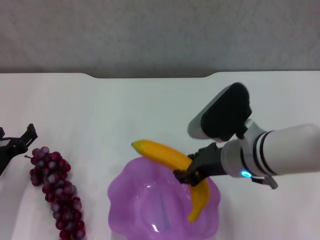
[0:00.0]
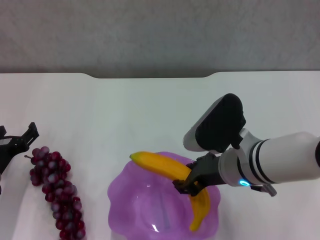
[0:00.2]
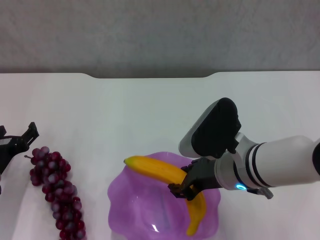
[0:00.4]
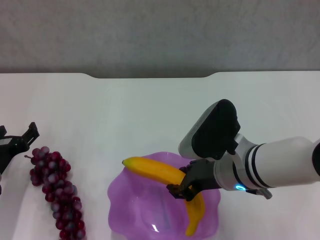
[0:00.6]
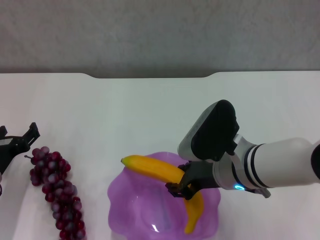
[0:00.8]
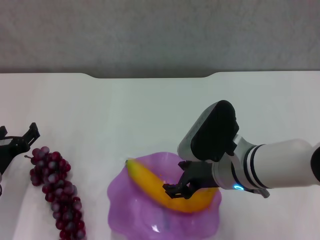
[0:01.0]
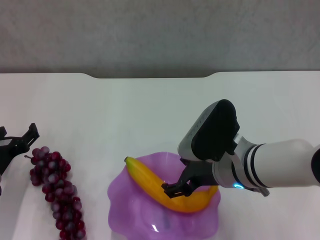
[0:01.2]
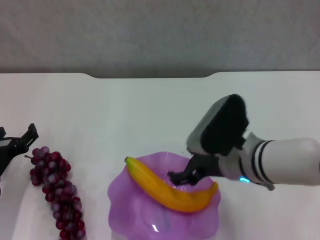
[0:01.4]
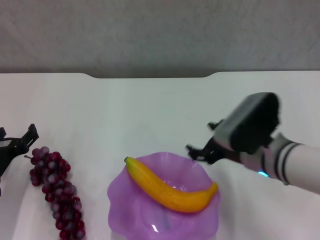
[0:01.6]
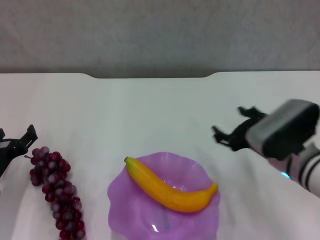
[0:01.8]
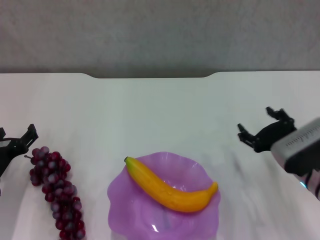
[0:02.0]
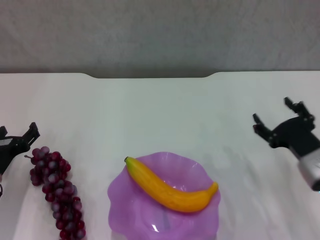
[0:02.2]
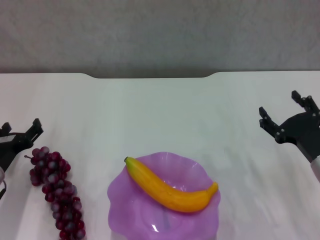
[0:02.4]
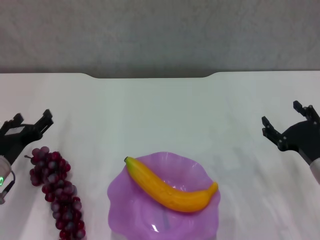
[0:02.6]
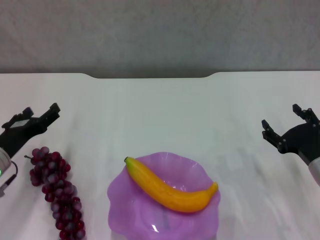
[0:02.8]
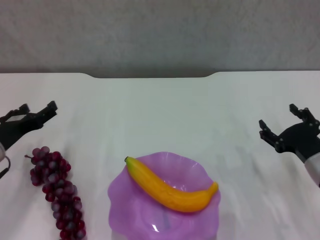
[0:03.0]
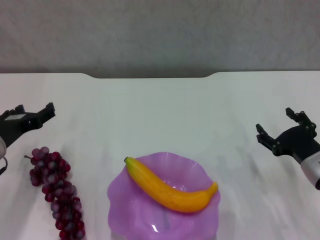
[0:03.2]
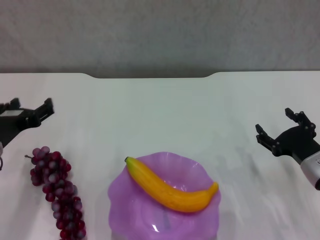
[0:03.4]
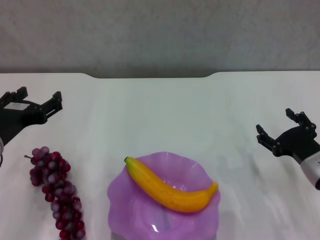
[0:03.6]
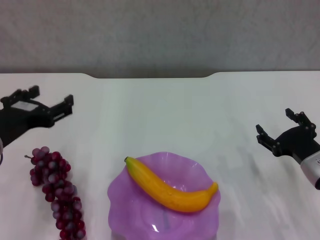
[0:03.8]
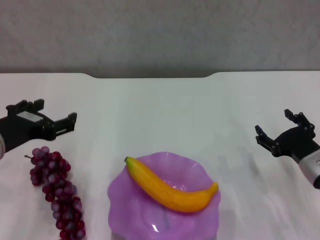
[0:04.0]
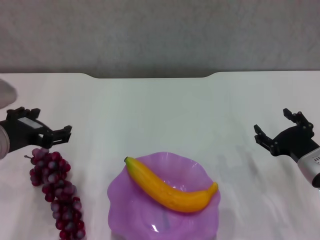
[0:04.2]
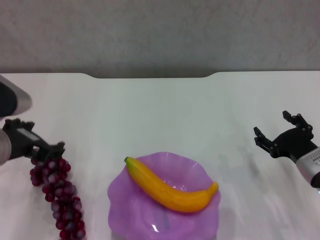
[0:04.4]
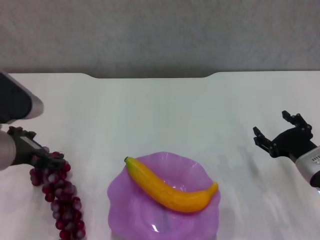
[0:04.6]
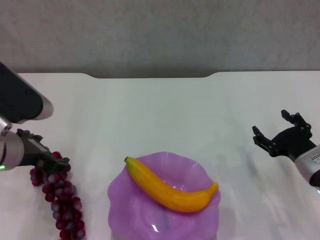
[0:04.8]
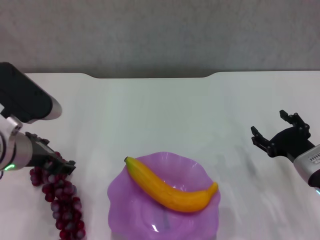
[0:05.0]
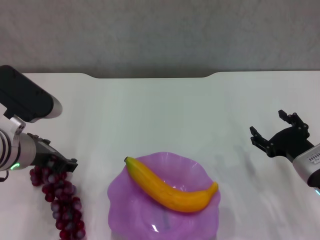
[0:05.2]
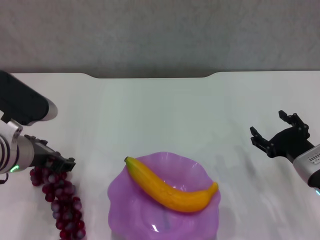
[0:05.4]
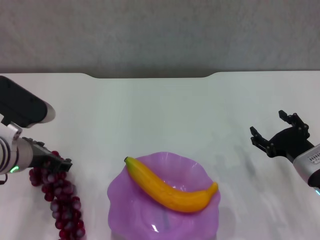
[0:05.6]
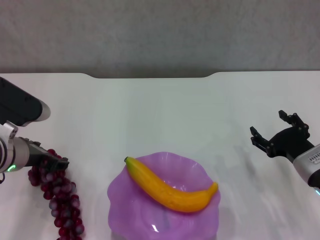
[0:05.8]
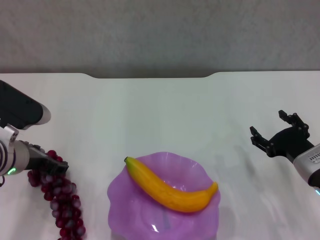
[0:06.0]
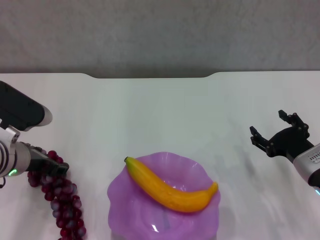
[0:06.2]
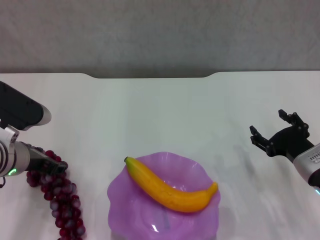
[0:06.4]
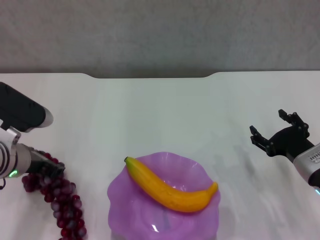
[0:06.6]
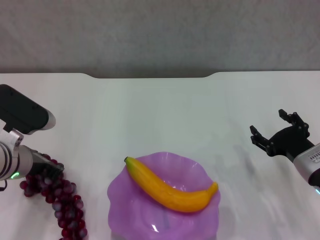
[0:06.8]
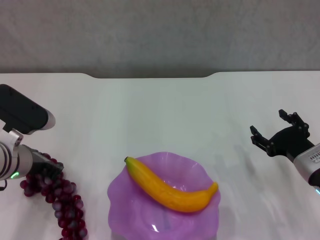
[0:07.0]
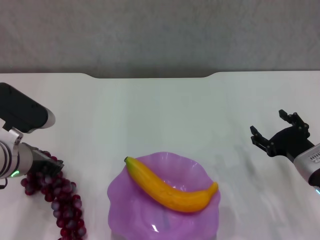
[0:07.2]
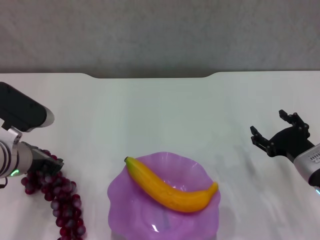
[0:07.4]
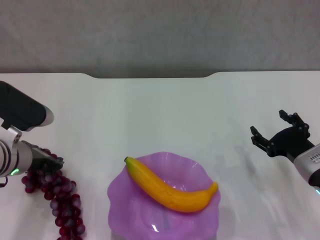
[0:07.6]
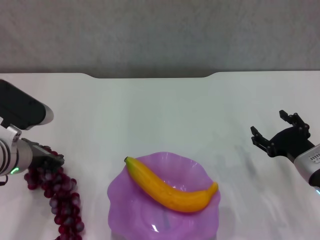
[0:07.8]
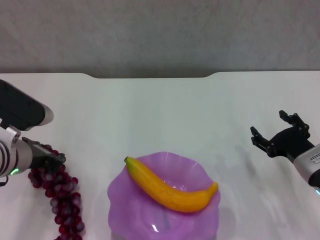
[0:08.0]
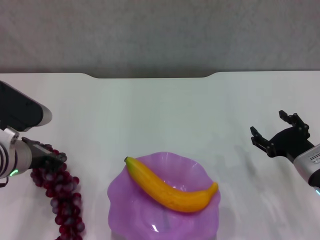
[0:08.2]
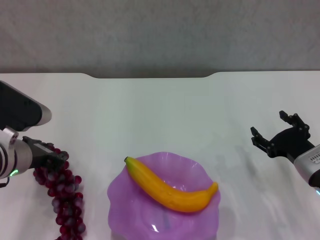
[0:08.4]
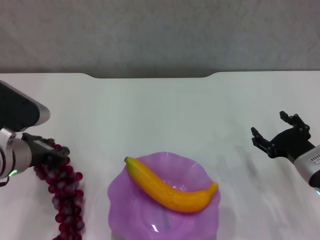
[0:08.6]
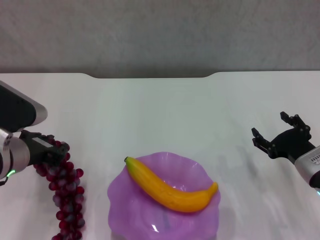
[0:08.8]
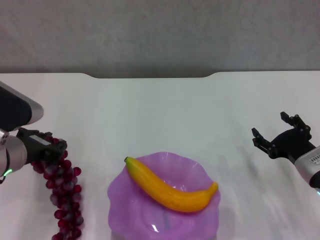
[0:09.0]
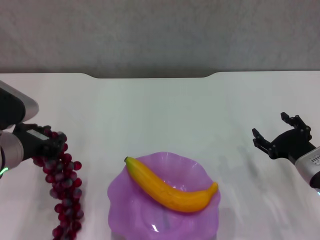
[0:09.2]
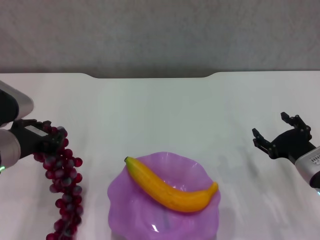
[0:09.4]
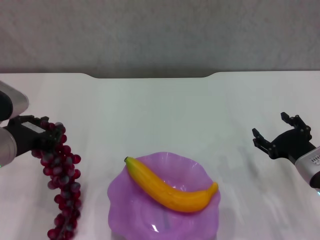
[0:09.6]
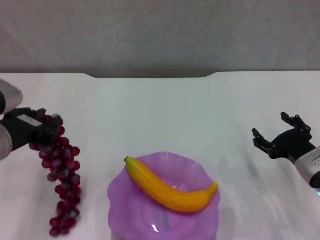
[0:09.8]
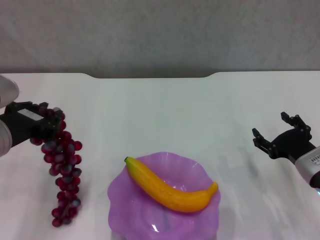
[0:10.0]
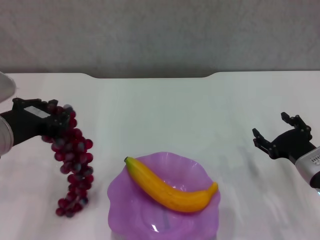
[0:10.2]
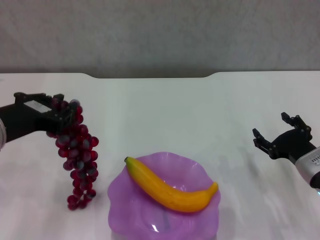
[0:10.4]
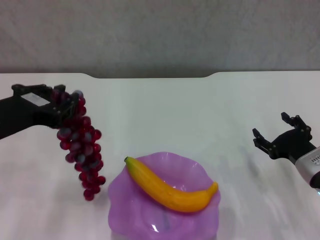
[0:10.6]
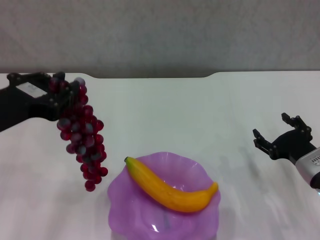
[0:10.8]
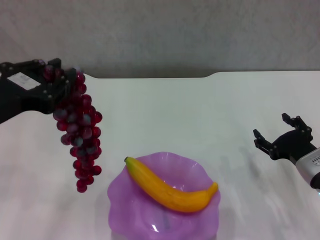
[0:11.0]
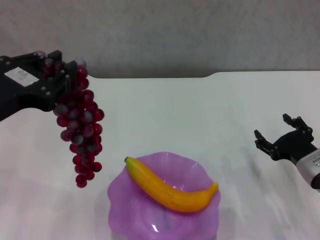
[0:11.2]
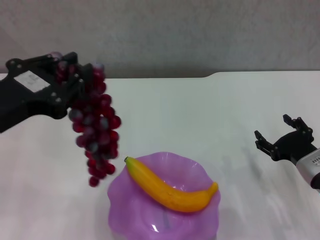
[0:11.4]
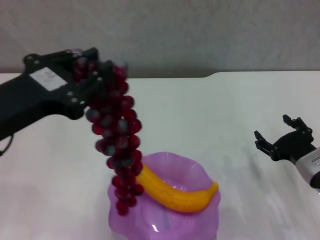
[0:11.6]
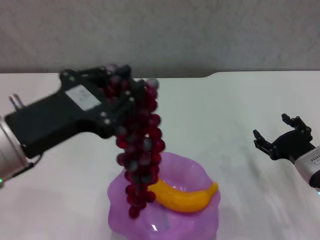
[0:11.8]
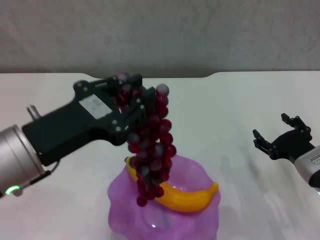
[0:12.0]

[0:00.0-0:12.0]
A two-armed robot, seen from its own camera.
Step, 0:01.4 to 0:07.0: Grasp the grape with left gripper.
0:00.0 to 0:01.6: The right gripper opens.
0:01.6 to 0:03.0: The left gripper changes place by some 5 cm, while the right gripper goes roughly 15 cm to the right and downward.
0:03.0 to 0:04.4: The left gripper is displaced upward and to the right by roughly 10 cm.
0:04.4 to 0:06.0: The left gripper travels downward by roughly 5 cm.
0:06.0 to 0:07.6: The left gripper closes its fingers.
0:07.6 to 0:09.0: The grippers stay close to where they were, moving slightly.
0:09.0 to 0:10.4: The left gripper moves upward, about 5 cm.
0:10.4 to 0:12.0: The left gripper moves to the right, approximately 5 cm.

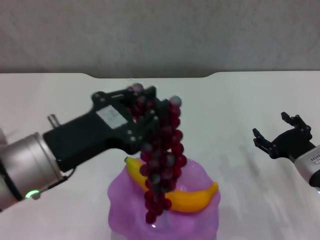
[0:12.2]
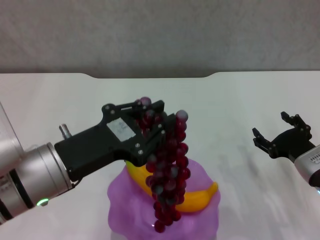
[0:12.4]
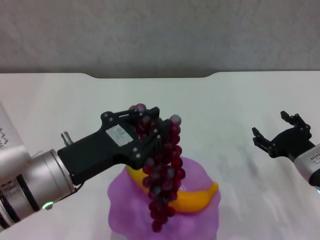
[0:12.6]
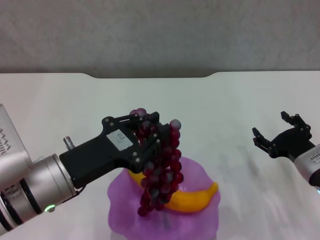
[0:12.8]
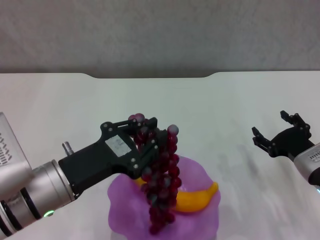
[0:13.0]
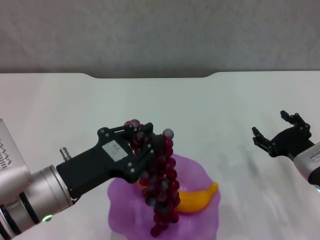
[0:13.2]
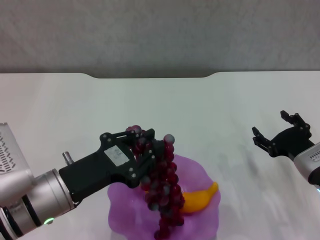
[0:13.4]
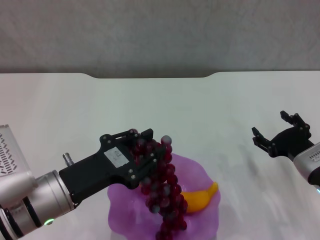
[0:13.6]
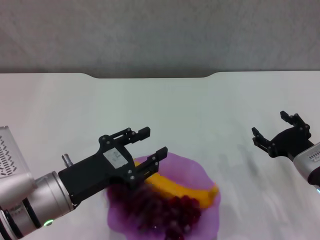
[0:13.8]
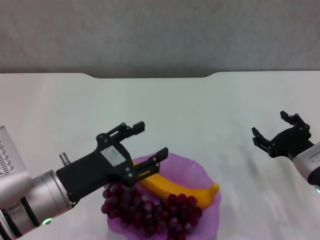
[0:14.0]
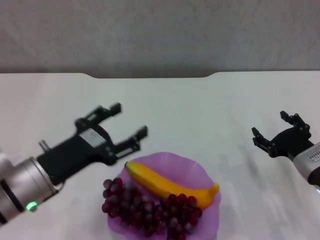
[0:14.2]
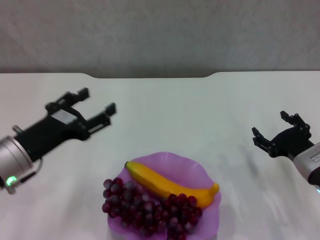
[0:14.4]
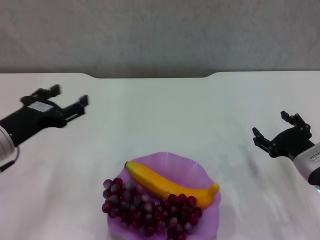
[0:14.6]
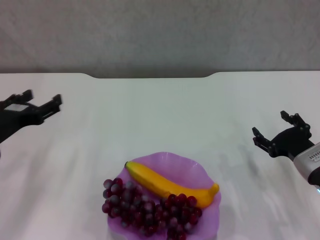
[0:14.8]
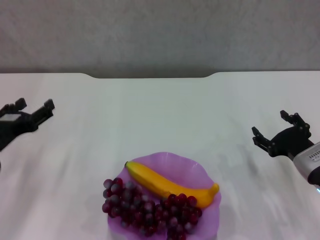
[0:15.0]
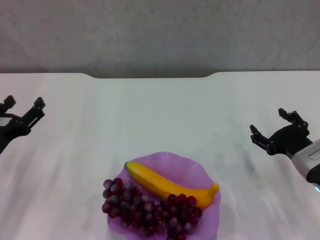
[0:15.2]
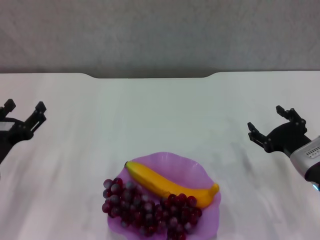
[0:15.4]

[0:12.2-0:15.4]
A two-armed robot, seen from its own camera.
0:12.2 to 0:13.8: The left gripper shifts about 10 cm downward.
0:13.8 to 0:15.4: The left gripper travels to the left by approximately 10 cm, and opens its fingers.
